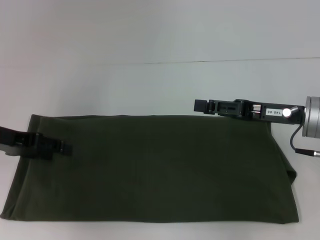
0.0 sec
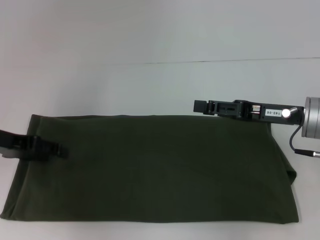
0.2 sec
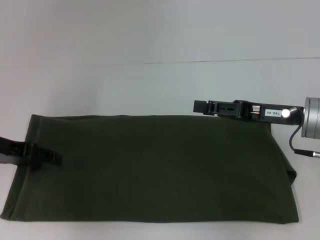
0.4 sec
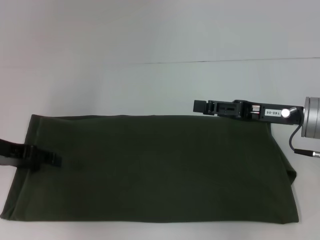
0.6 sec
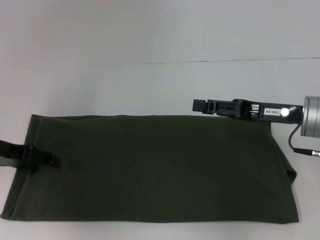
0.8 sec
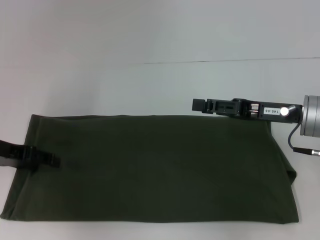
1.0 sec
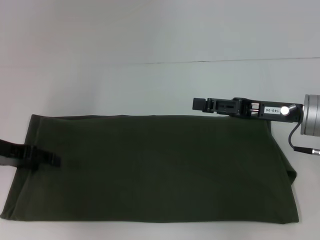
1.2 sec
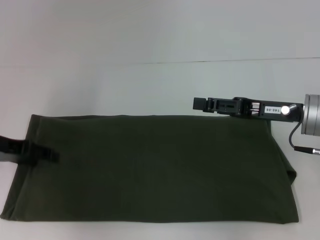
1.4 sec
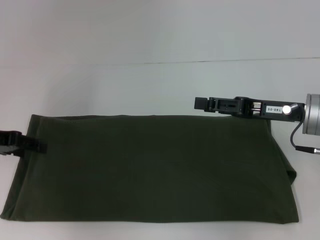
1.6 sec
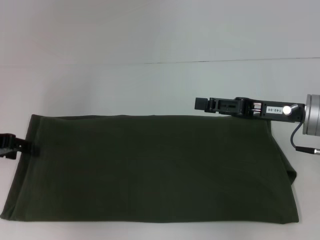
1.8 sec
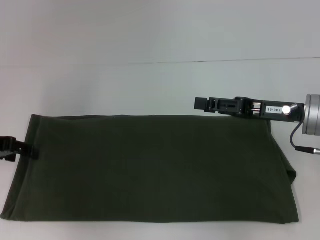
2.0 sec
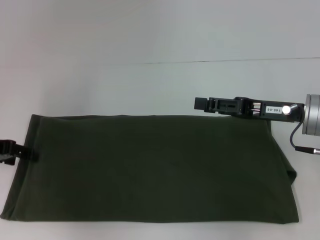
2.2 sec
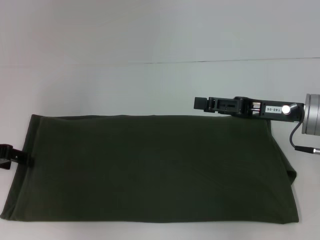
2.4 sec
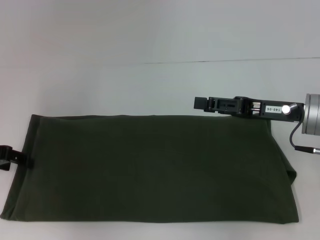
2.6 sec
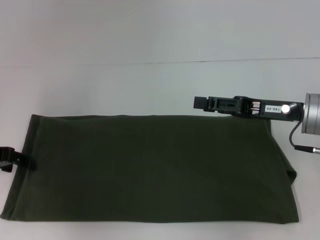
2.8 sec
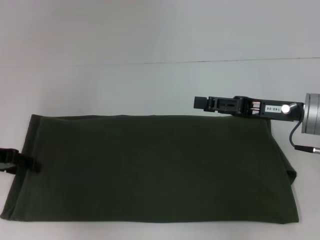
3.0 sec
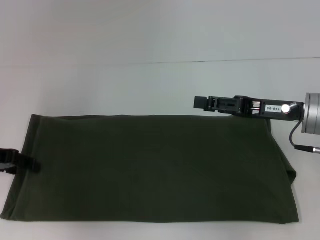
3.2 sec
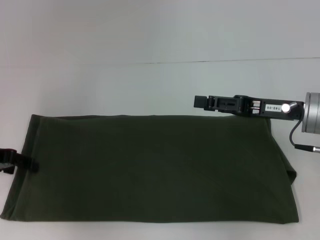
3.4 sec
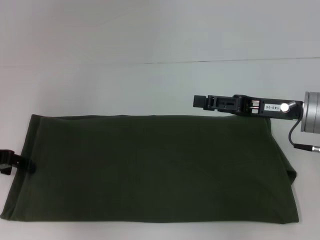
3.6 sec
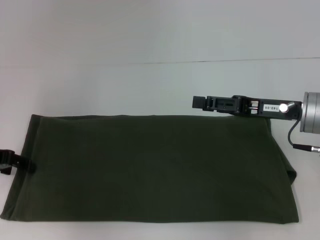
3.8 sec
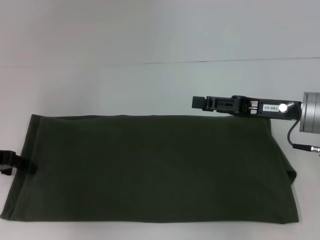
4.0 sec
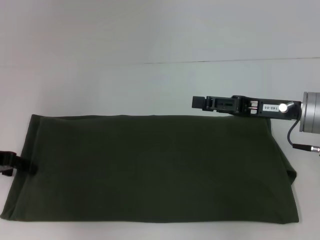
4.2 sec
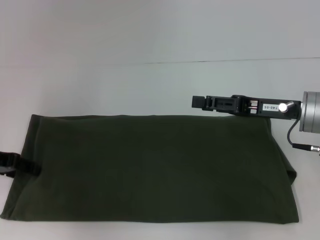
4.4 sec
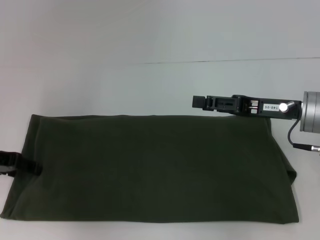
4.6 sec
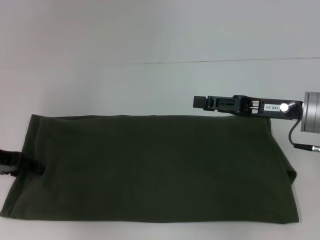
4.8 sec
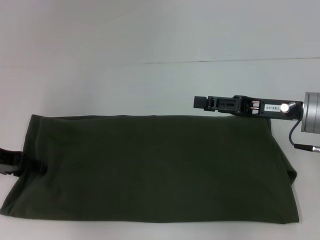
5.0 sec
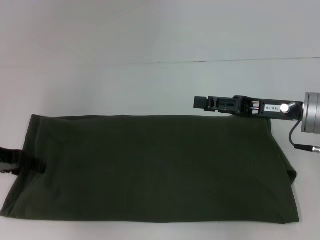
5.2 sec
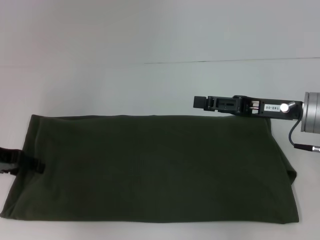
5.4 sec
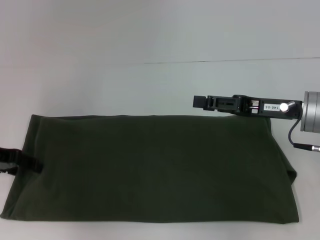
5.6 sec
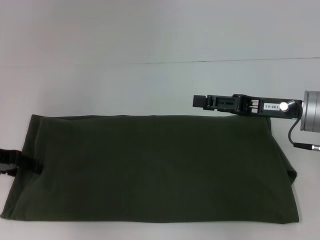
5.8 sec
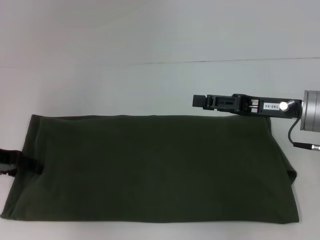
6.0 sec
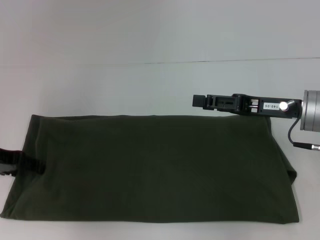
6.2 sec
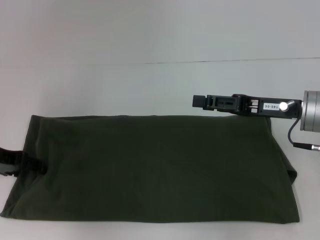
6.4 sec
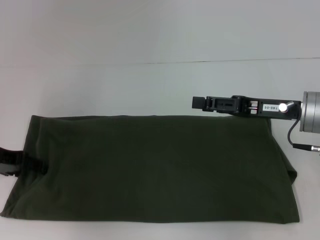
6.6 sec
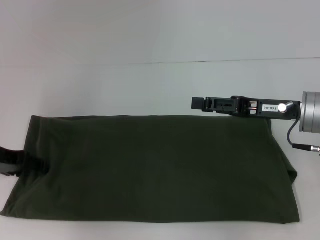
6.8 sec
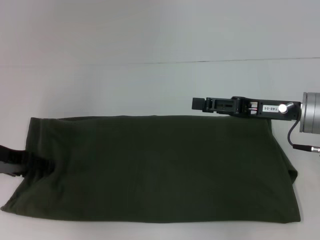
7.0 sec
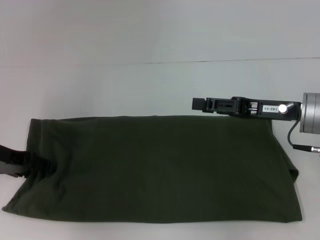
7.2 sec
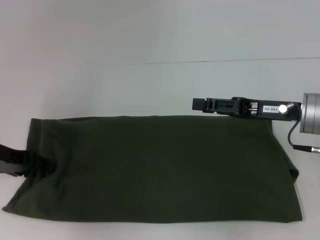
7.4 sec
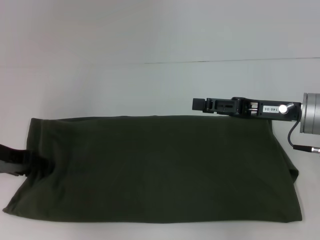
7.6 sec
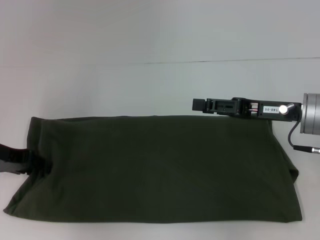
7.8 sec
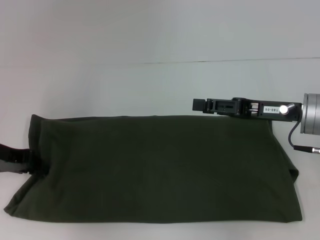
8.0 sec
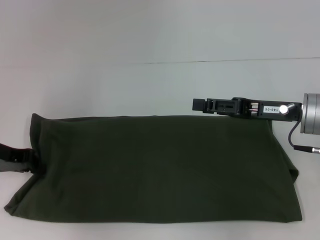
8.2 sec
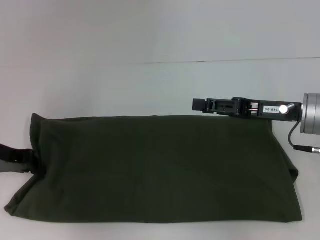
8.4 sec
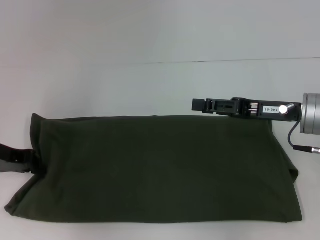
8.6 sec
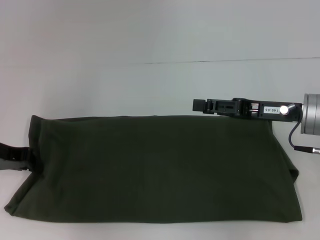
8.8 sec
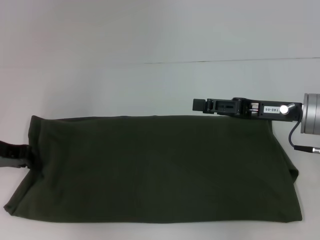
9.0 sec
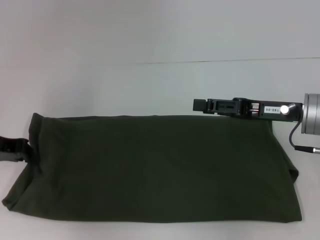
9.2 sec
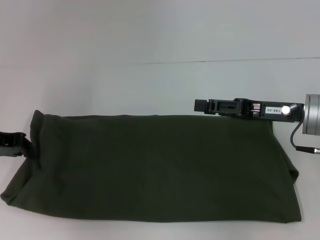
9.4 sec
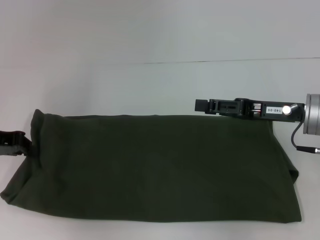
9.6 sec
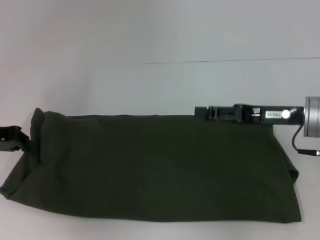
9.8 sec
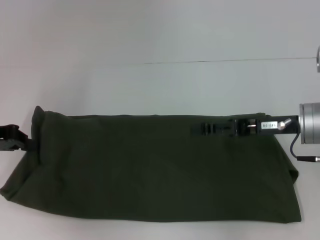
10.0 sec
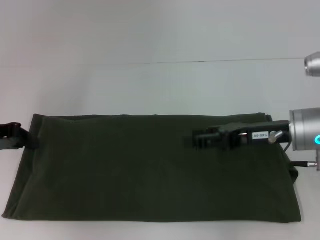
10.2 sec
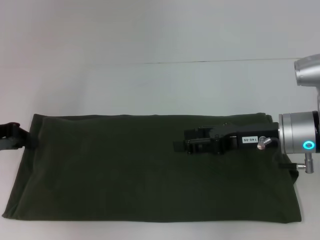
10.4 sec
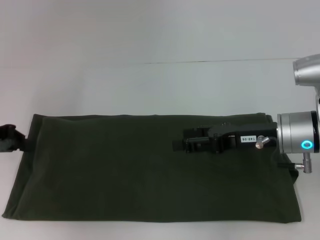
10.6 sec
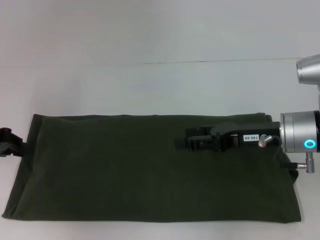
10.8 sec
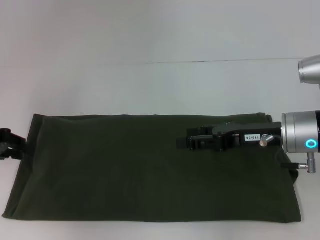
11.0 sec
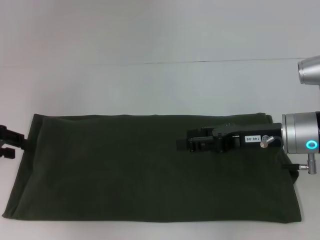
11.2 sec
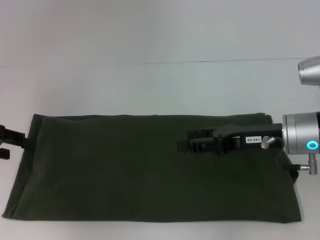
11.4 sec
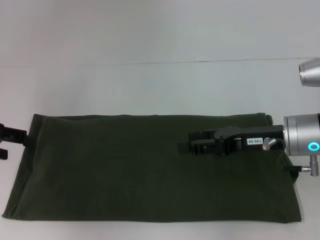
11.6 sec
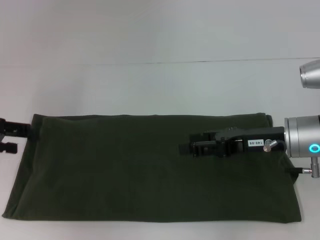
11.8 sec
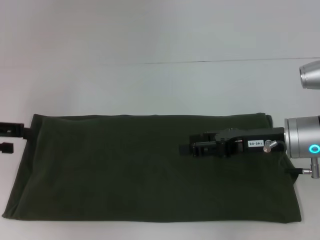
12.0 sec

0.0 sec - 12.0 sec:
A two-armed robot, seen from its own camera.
0.0 sec - 3.0 sec: The grippers make only small movements.
3.0 sec - 6.0 sec: The two grippers keep their place.
6.0 sec - 7.6 sec: There are only small adjustments of the grippers.
7.6 sec - 9.0 sec: The left gripper closes.
10.4 sec - 12.0 sec: The left gripper opens its fingers.

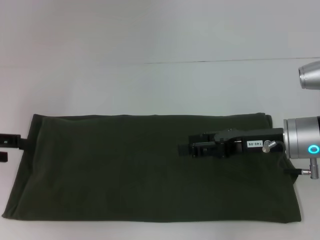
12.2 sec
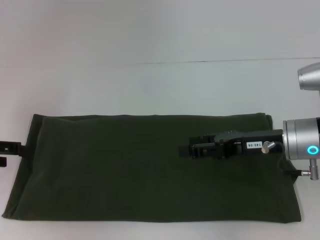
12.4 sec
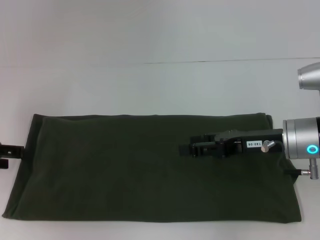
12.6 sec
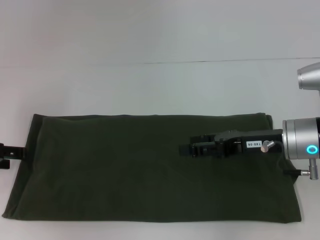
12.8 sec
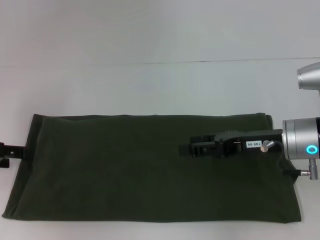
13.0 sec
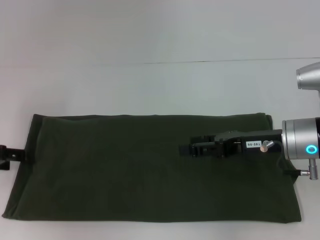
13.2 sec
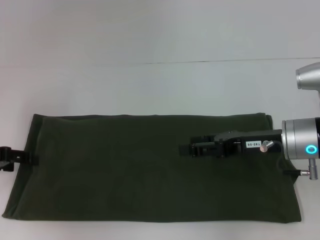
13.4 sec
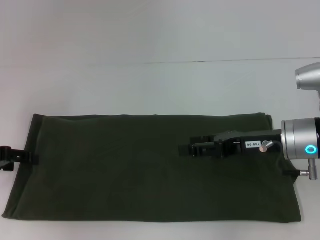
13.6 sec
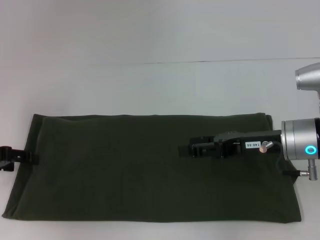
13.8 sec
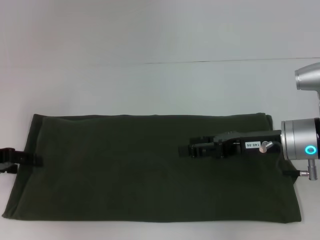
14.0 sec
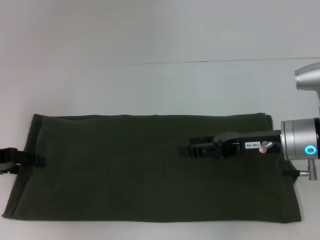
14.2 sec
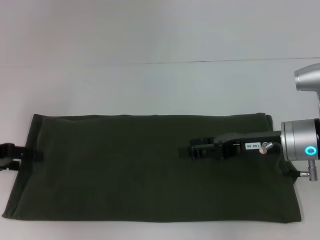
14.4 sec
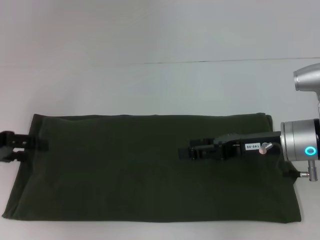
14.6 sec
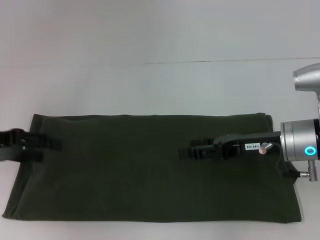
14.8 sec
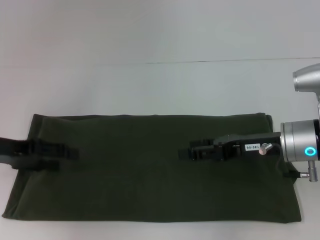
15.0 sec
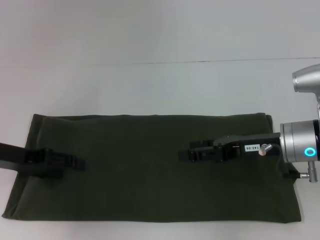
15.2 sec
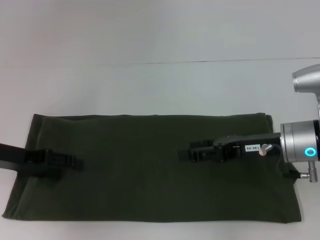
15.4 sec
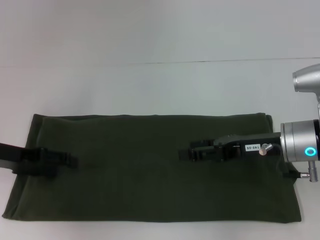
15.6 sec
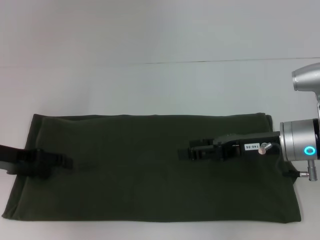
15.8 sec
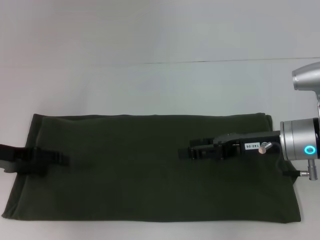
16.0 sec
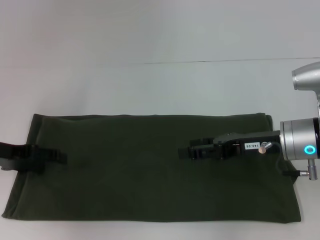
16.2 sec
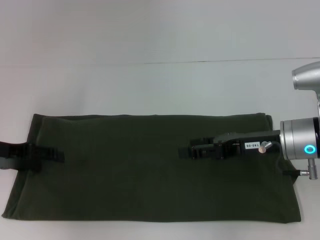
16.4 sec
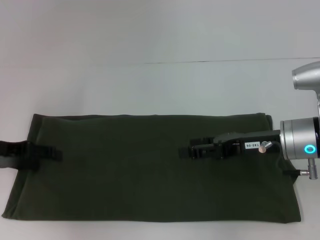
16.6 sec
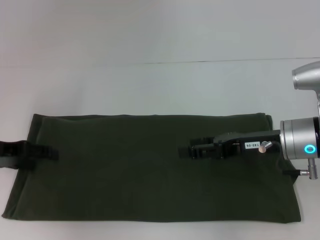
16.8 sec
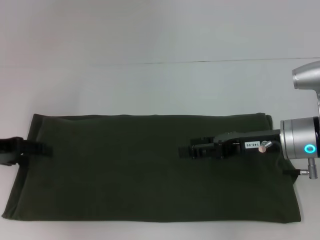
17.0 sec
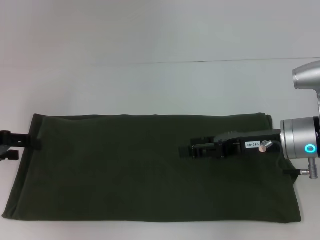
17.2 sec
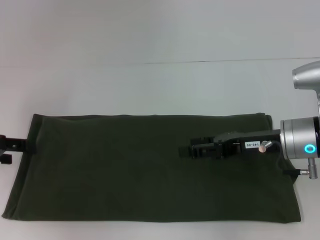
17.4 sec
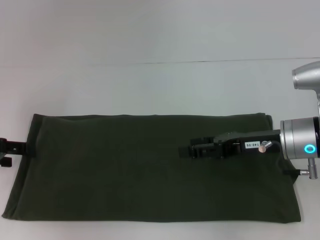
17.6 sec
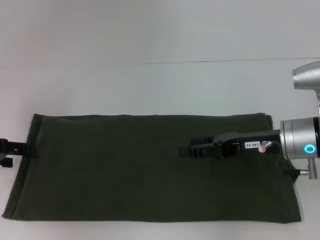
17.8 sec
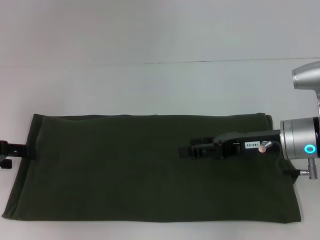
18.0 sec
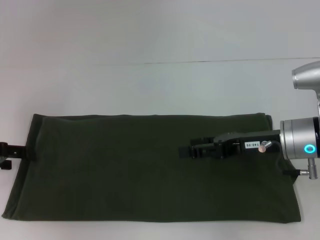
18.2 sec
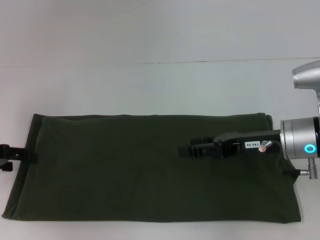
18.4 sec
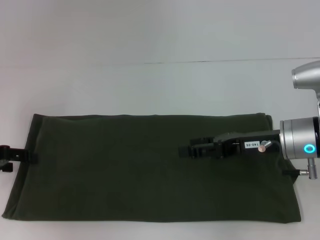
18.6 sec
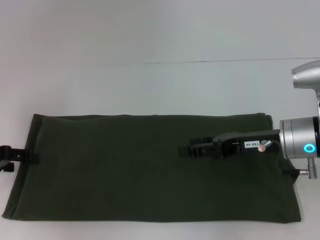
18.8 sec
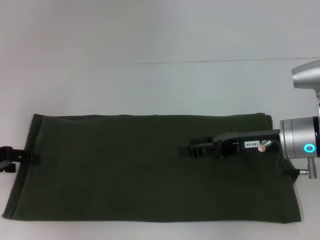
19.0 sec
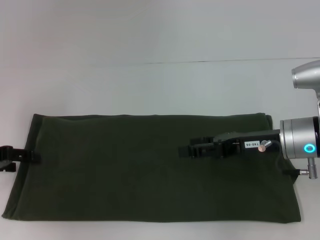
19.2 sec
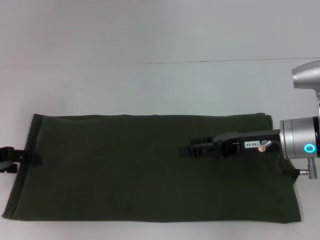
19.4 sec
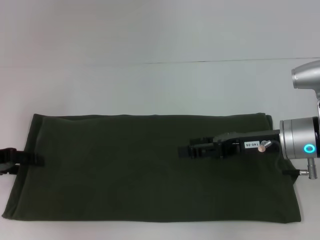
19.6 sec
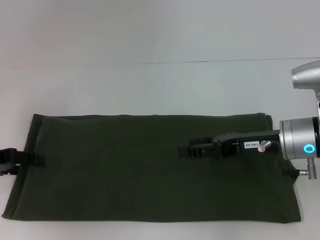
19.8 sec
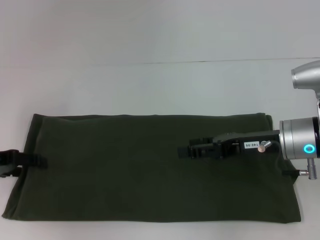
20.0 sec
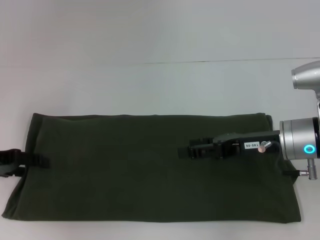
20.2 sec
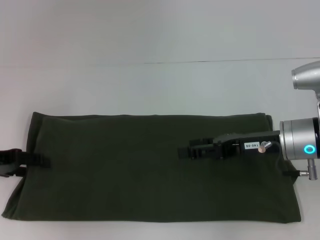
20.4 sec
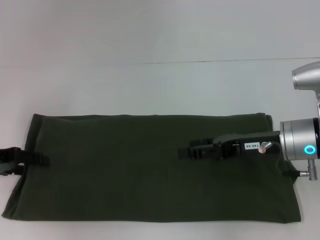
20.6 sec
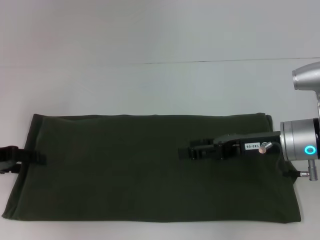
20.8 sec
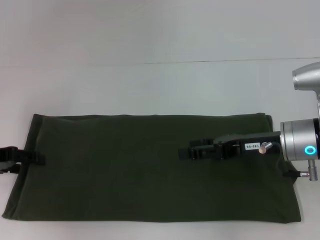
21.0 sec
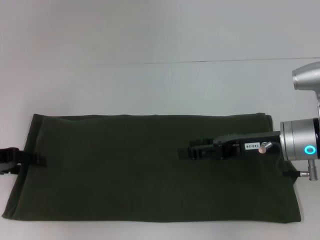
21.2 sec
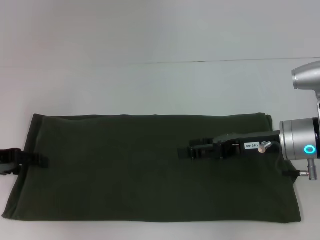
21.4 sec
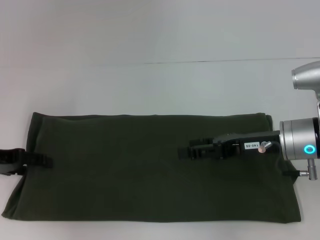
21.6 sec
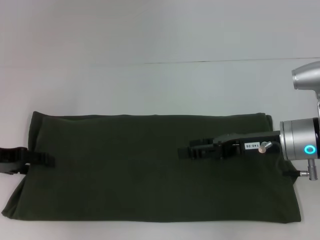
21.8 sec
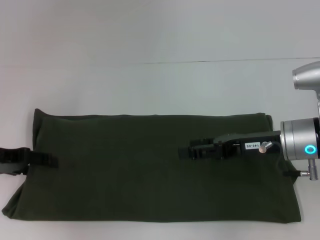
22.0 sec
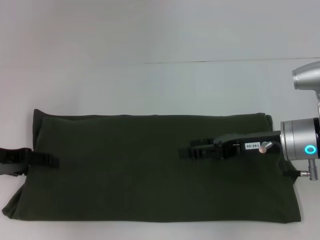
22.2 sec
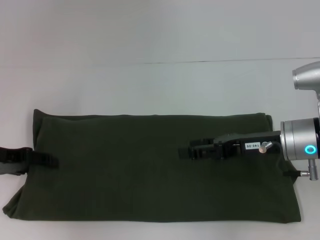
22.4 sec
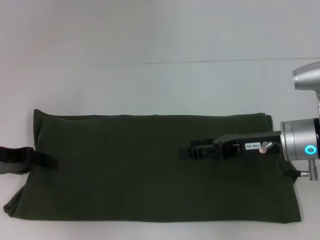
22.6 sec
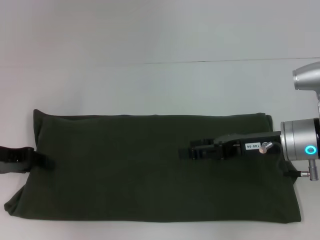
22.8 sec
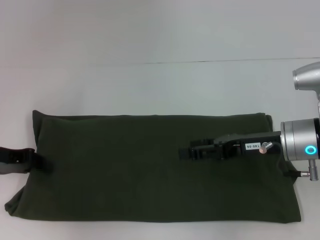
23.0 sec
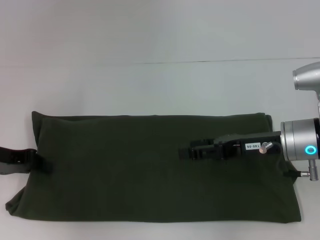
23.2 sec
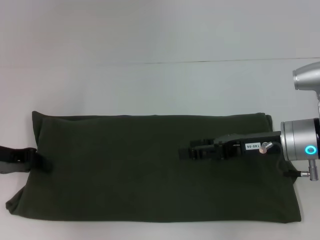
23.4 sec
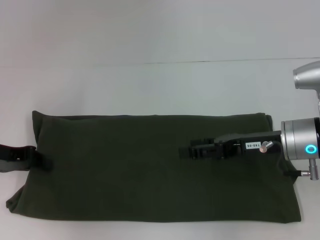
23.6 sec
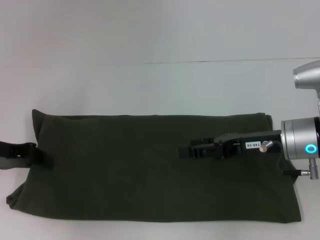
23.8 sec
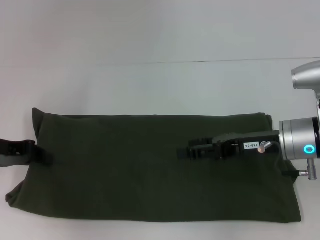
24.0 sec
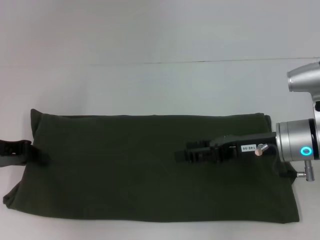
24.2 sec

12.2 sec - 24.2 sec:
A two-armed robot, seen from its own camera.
12.2 sec - 13.8 sec: The grippers move only a little.
13.8 sec - 15.2 sec: The left gripper travels to the right by some 5 cm.
15.2 sec - 16.6 sec: The grippers make only small movements.
18.2 sec - 19.8 sec: There are only small adjustments of the grippers.
19.8 sec - 21.2 sec: Both grippers stay about where they are.
21.2 sec - 22.6 sec: There are only small adjustments of the grippers.
22.6 sec - 24.2 sec: The left gripper closes.
